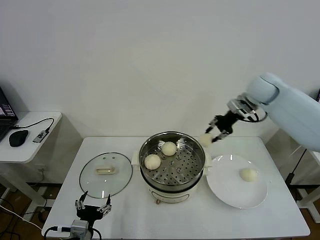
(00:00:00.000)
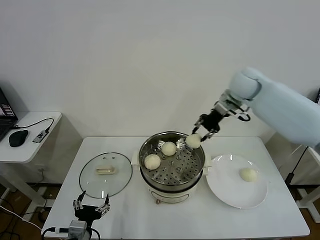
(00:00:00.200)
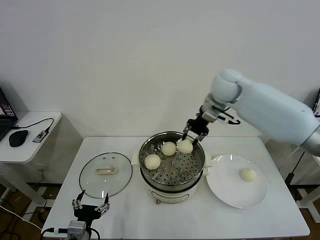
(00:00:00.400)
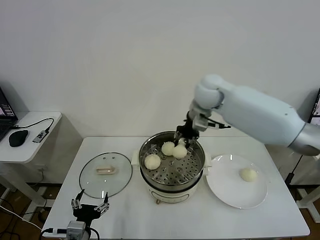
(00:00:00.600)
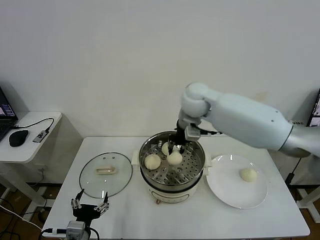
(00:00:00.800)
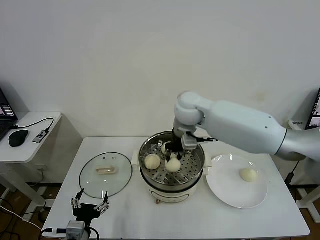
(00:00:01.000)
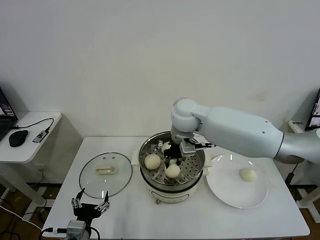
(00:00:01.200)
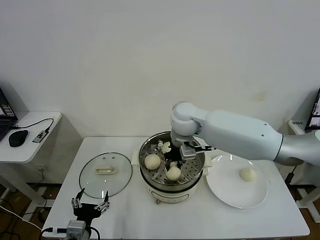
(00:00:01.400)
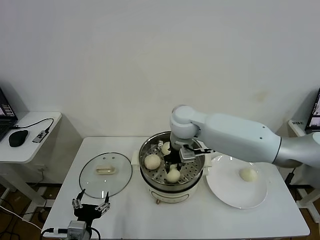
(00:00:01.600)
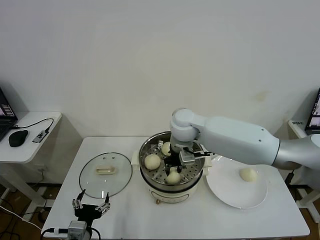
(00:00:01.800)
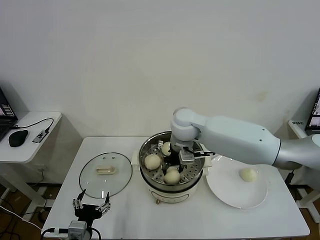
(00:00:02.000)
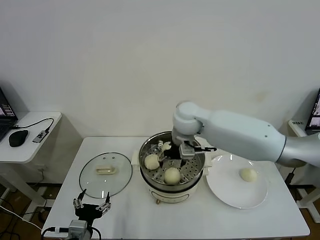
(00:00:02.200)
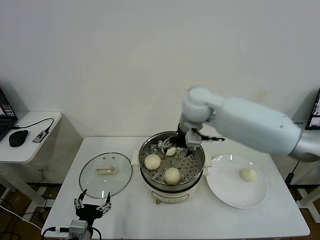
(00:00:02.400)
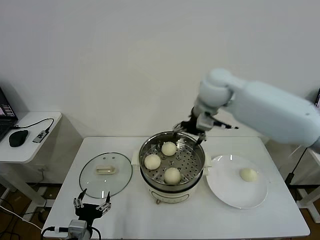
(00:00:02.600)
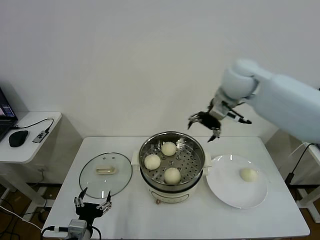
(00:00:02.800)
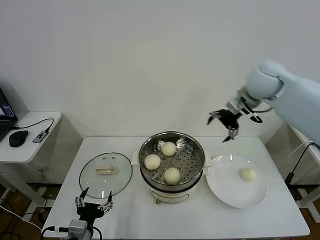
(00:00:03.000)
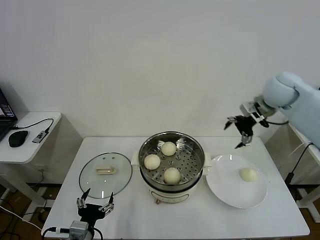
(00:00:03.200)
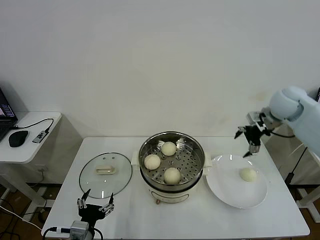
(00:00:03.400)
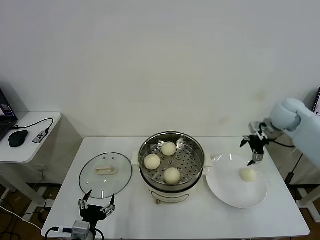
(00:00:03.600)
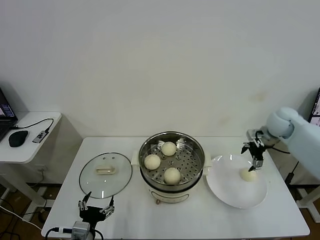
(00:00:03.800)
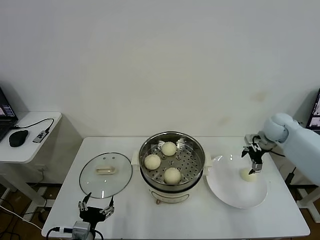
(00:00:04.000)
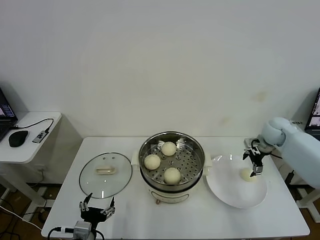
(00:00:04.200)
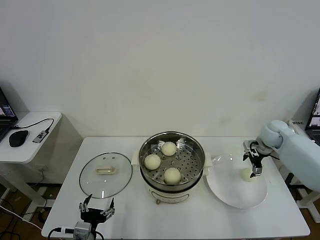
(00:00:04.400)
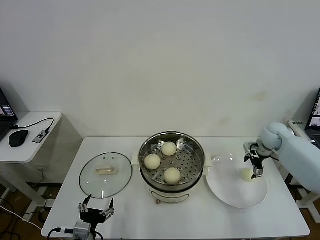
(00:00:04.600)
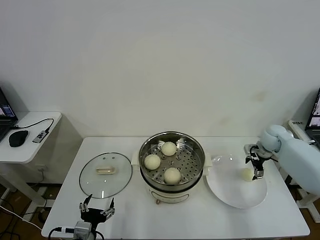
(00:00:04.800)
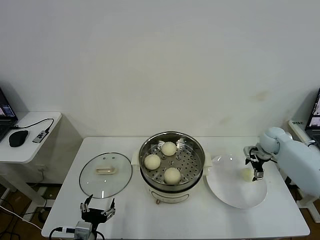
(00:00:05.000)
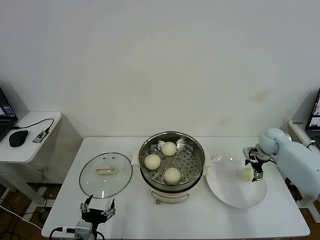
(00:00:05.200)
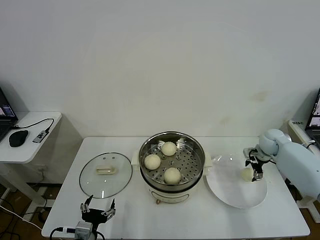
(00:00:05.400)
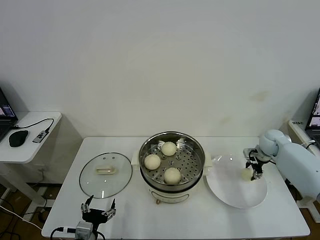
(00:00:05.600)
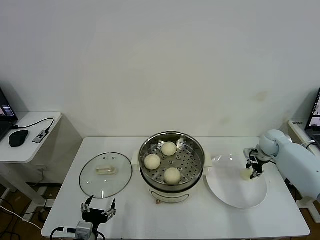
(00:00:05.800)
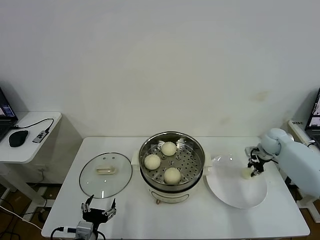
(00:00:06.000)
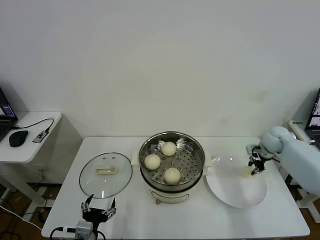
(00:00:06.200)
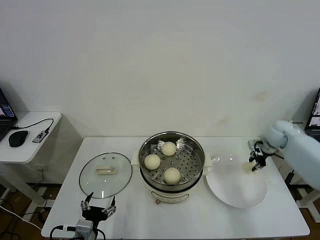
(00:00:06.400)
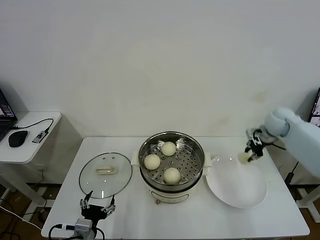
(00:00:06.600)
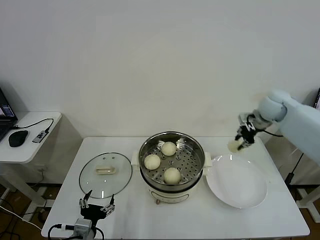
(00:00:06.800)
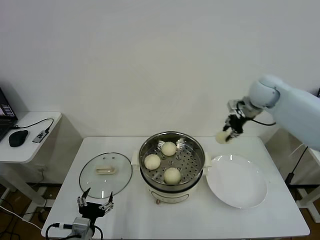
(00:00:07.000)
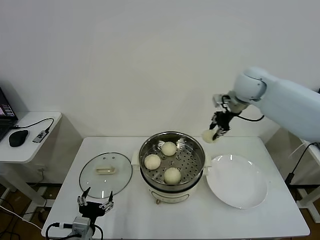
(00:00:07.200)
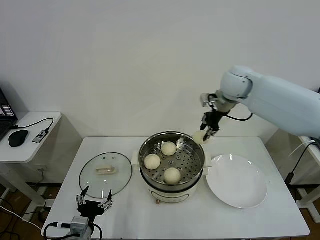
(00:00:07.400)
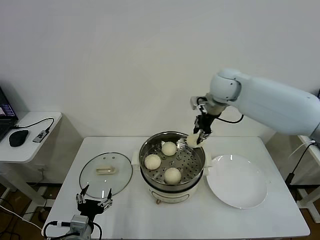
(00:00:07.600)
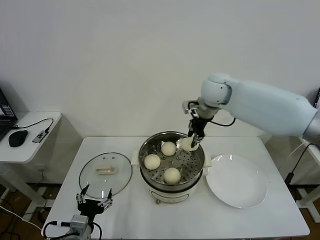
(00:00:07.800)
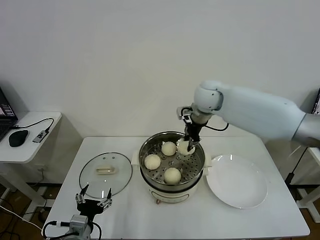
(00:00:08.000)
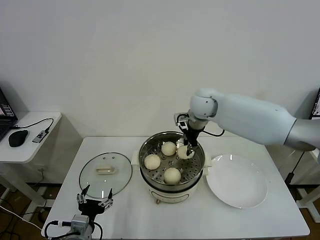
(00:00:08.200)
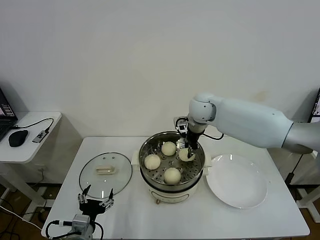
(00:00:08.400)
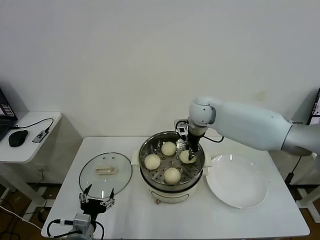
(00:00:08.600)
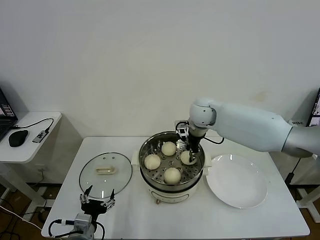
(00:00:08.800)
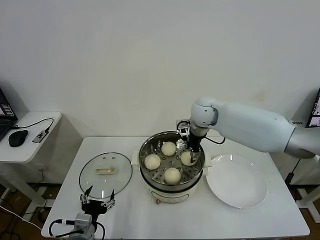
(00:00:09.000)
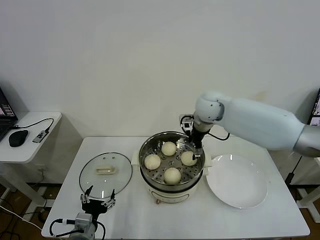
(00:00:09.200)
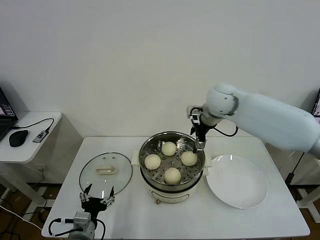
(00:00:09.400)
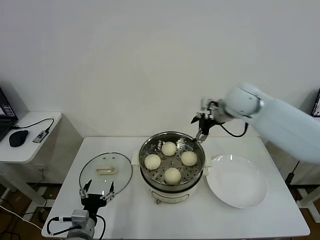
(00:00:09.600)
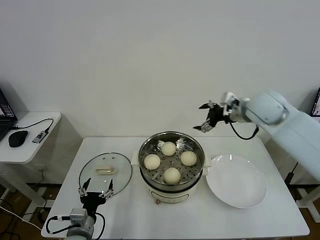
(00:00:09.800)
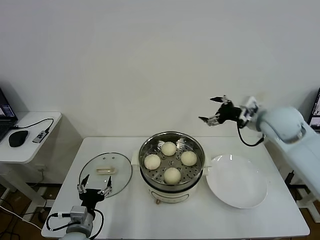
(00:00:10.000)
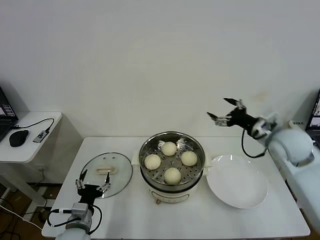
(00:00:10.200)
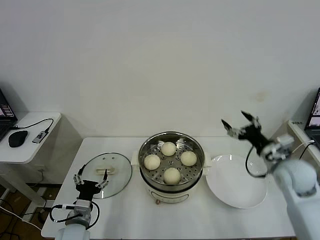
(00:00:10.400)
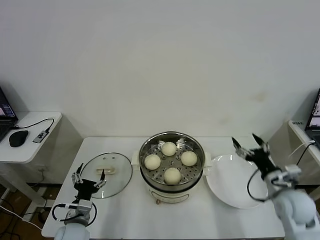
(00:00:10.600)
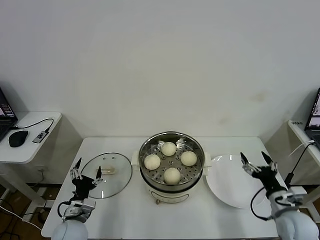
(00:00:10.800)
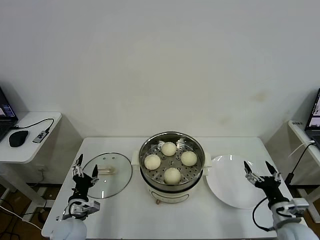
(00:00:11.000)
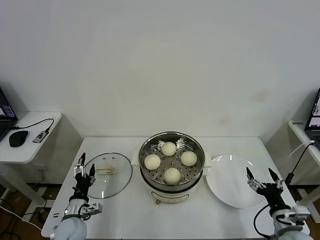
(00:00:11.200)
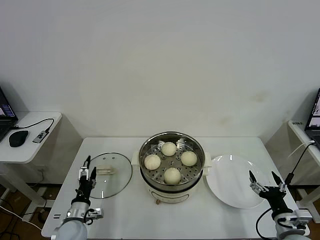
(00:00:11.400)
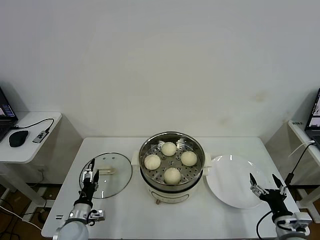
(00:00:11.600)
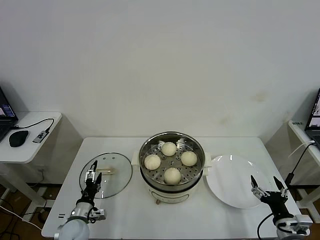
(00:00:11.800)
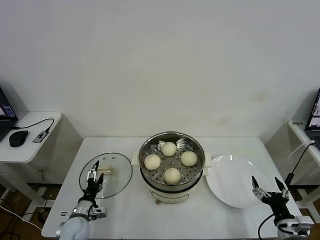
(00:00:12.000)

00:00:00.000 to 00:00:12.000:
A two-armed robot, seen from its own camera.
Task of the whole recording: take steamed baozi put them in steamer then cover it.
Step, 00:00:00.000 to 00:00:02.200: Place the baozi on the steamer with right gripper.
Step, 00:00:02.400 to 00:00:06.000: Grasp the baozi in the plate with right gripper.
Step, 00:00:06.200 to 00:00:09.000: Place the baozi on the steamer with right gripper.
00:00:00.000 to 00:00:01.600: The right gripper is displaced to the left and backward by approximately 25 cm.
00:00:01.600 to 00:00:03.000: The right gripper travels to the right and upward by roughly 25 cm, and opens up.
00:00:03.000 to 00:00:04.400: The right gripper is displaced downward and to the right by some 25 cm.
00:00:04.400 to 00:00:06.000: The right gripper closes its fingers.
00:00:06.000 to 00:00:07.600: The right gripper goes some 35 cm to the left and upward.
00:00:07.600 to 00:00:09.000: The right gripper shifts approximately 10 cm downward, and opens.
00:00:09.000 to 00:00:10.400: The left gripper shifts about 5 cm forward; the right gripper heads to the right and backward, covering approximately 30 cm.
00:00:10.400 to 00:00:12.000: The right gripper goes some 20 cm backward and downward. Meanwhile the left gripper goes approximately 10 cm downward.

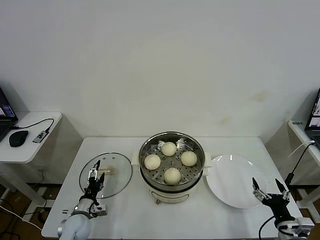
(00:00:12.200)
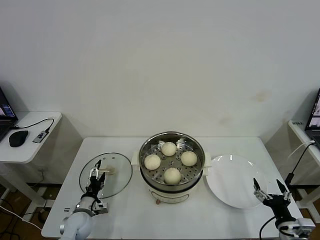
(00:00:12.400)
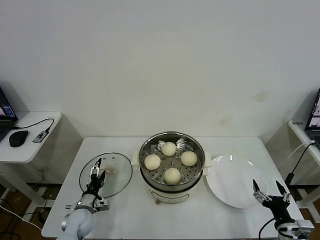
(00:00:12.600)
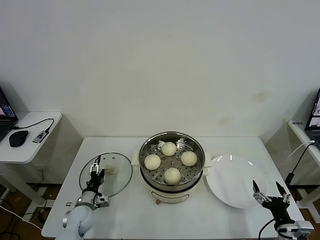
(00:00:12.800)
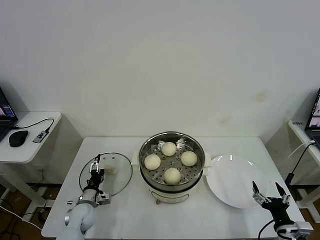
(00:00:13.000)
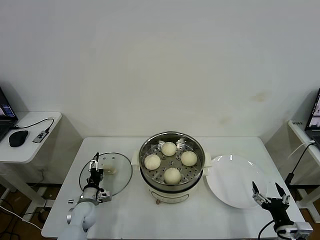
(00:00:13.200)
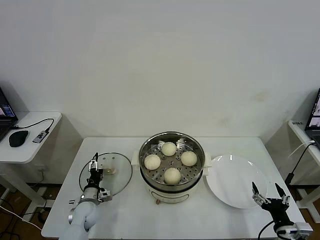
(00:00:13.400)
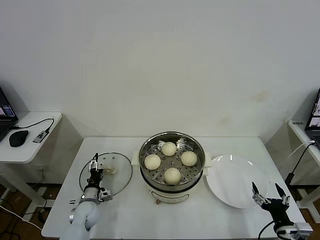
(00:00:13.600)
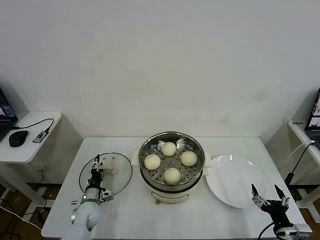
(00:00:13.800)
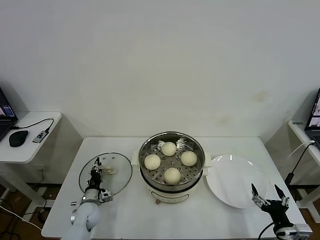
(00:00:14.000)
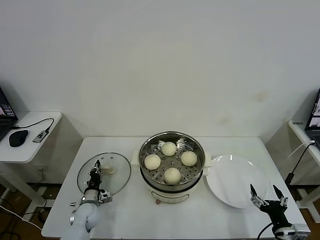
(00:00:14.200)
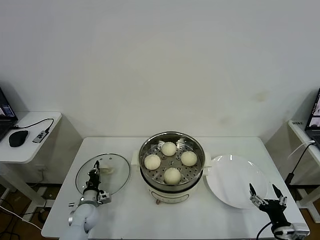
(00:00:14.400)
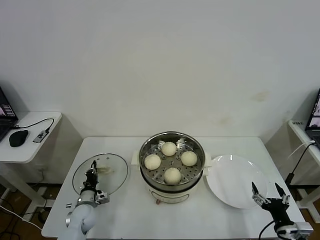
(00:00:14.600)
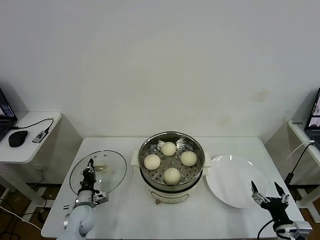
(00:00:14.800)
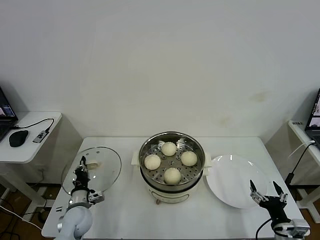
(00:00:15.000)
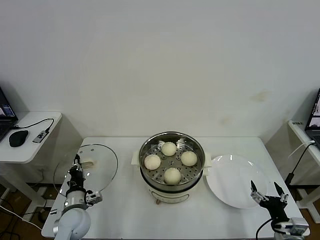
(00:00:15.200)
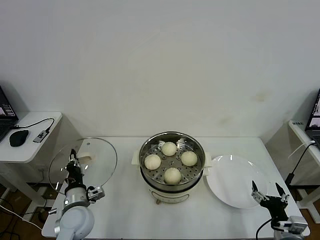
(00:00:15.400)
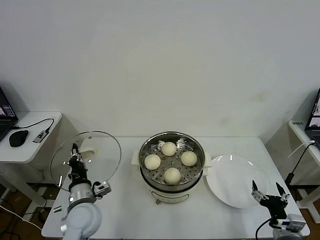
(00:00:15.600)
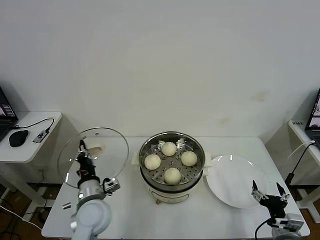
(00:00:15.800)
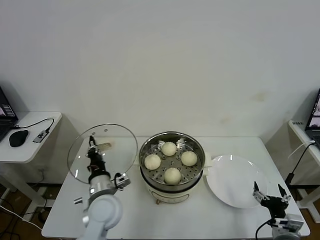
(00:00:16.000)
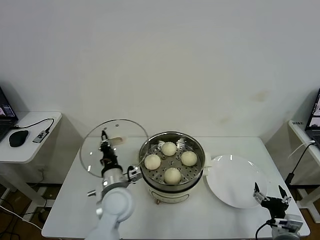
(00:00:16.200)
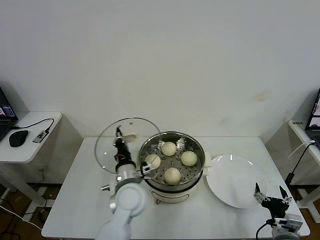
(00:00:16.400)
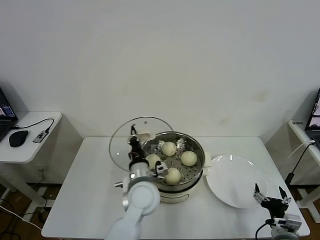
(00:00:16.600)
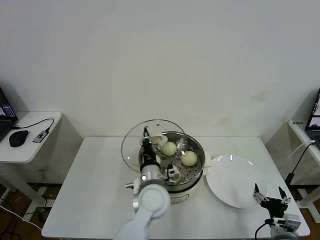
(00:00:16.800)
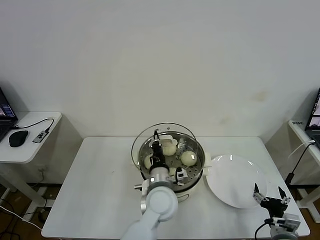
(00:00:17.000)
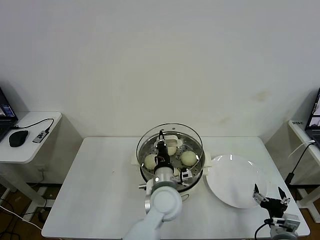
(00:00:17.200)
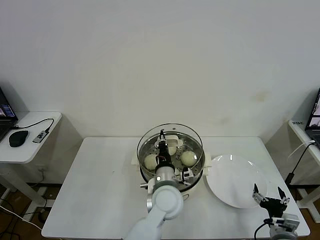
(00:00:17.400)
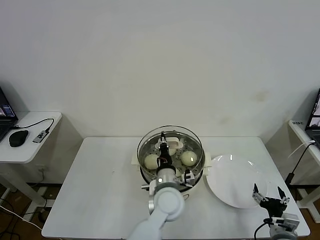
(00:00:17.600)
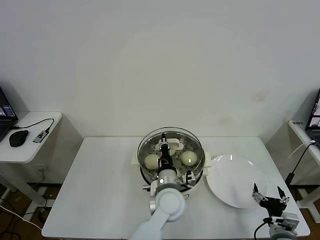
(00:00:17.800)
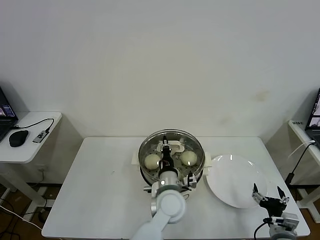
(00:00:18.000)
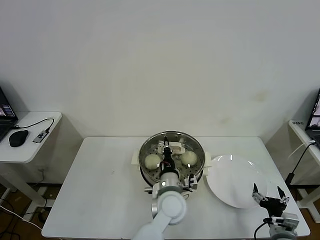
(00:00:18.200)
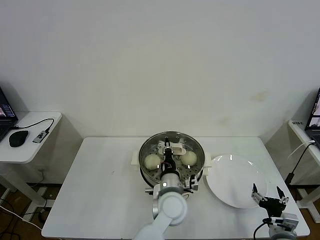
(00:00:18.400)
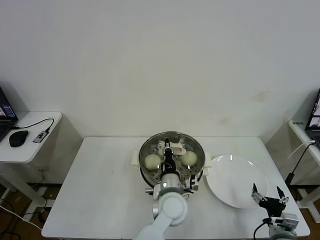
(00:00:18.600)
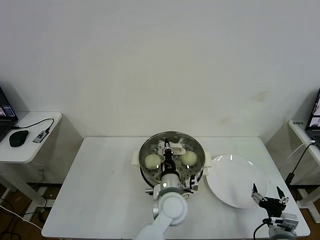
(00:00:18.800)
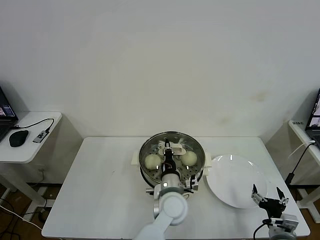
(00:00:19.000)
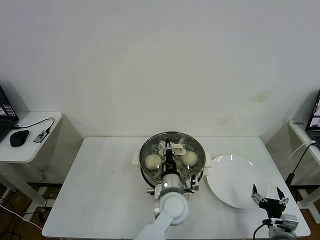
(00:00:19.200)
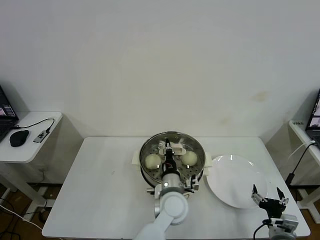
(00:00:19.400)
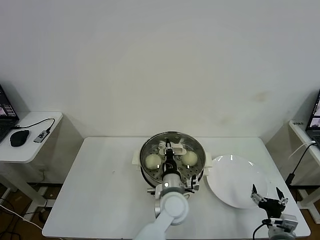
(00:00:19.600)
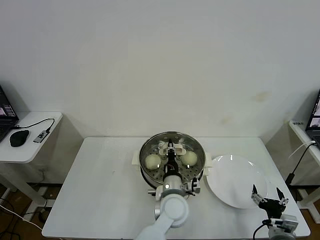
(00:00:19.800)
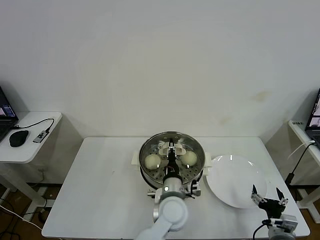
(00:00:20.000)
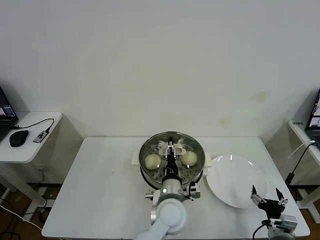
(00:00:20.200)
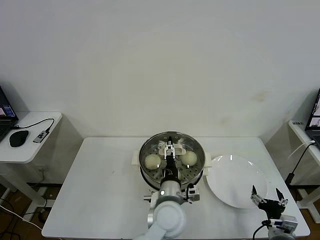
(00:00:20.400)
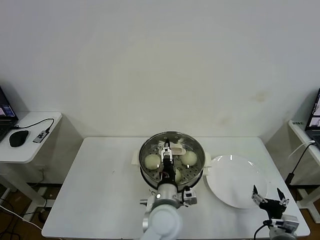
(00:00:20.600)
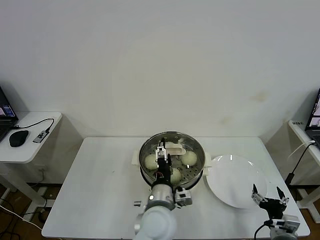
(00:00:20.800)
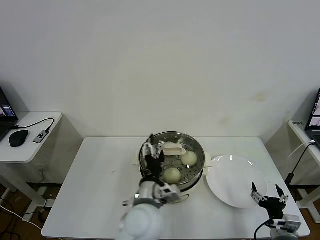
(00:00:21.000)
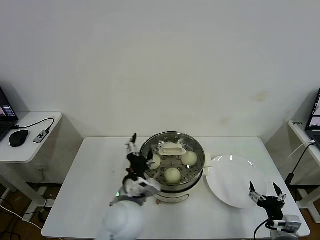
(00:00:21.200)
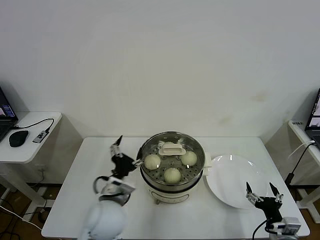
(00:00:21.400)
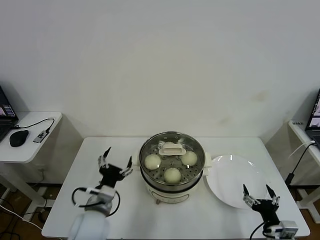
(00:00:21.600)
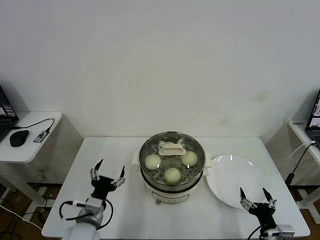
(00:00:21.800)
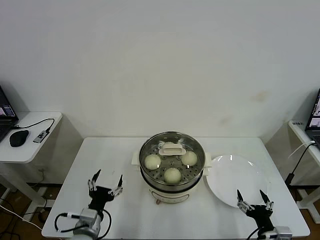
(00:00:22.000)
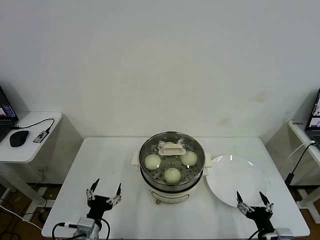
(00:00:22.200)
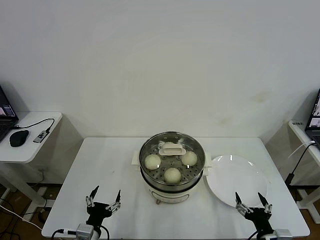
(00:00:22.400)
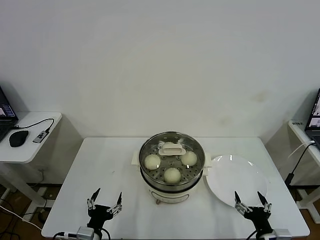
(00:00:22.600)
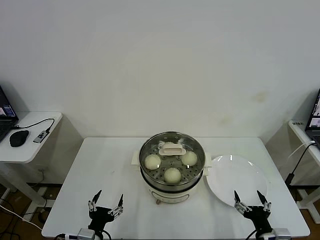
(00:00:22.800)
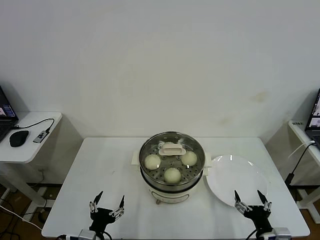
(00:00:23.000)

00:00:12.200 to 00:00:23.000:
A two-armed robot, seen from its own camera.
Task of the whole recording: take steamed baozi put them in steamer then cover it.
Step, 00:00:12.200 to 00:00:14.600: Grasp the pot lid with left gripper.
Step, 00:00:14.800 to 00:00:20.600: Place the pot lid on the steamer with left gripper.
00:00:12.200 to 00:00:13.800: The left gripper is displaced forward by about 5 cm.
00:00:13.800 to 00:00:15.200: The left gripper goes some 10 cm upward and backward, and closes up.
00:00:15.200 to 00:00:16.800: The left gripper is displaced to the right and upward by approximately 30 cm.
00:00:16.800 to 00:00:18.400: The left gripper heads to the right, covering approximately 5 cm.
00:00:18.400 to 00:00:20.000: The left gripper opens up.
00:00:20.000 to 00:00:21.400: The left gripper heads to the left, covering roughly 15 cm, and opens up.
00:00:21.400 to 00:00:23.000: The left gripper shifts approximately 20 cm downward, backward and to the left.
